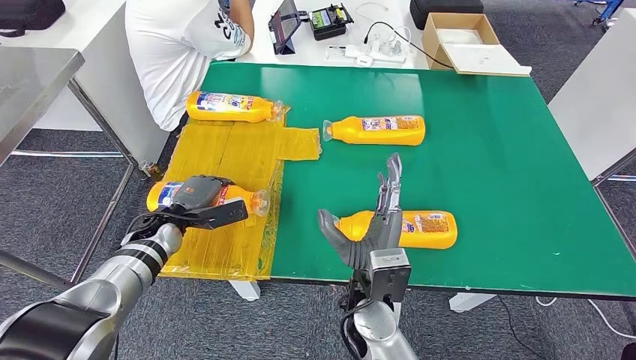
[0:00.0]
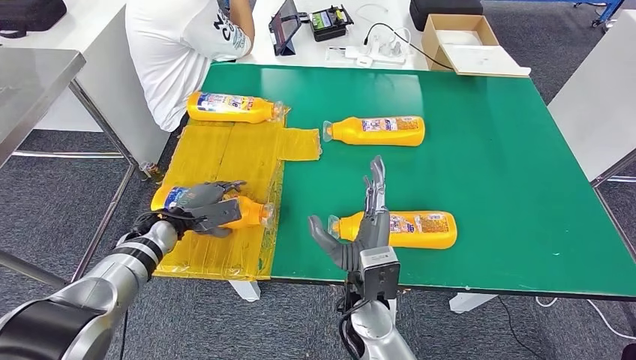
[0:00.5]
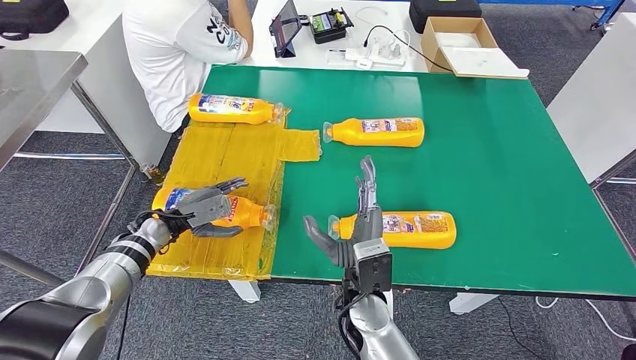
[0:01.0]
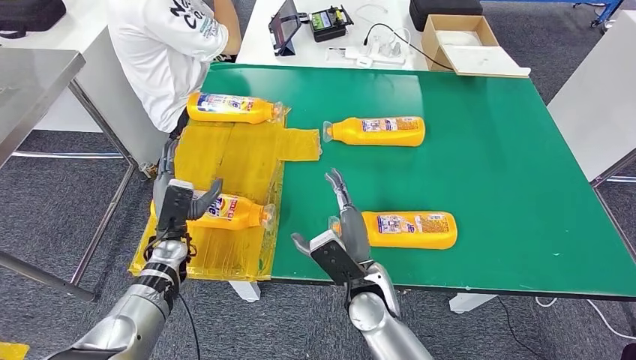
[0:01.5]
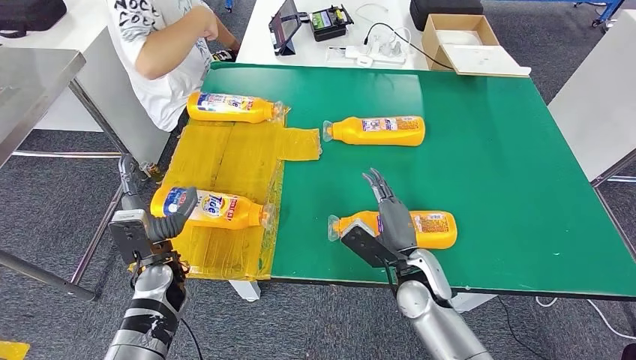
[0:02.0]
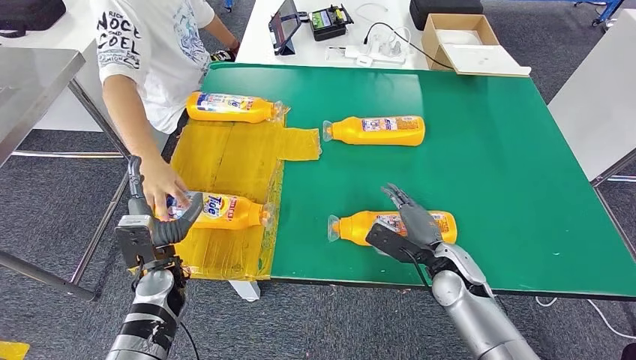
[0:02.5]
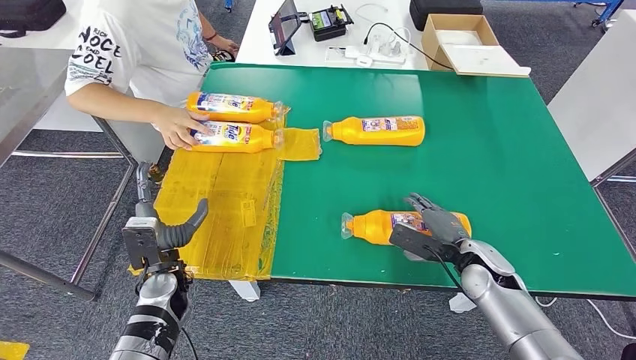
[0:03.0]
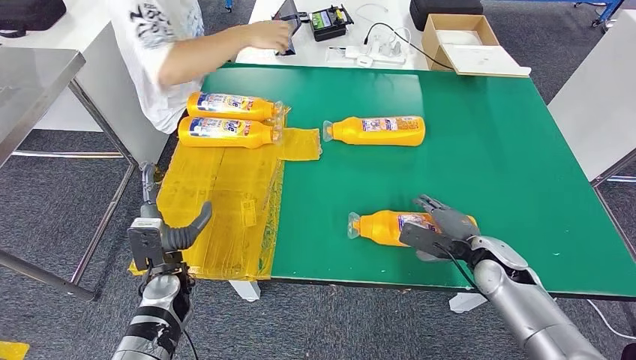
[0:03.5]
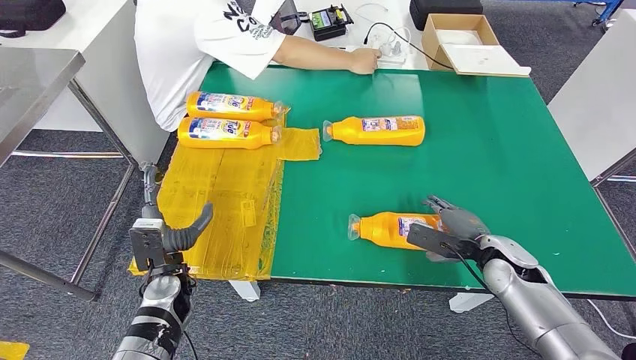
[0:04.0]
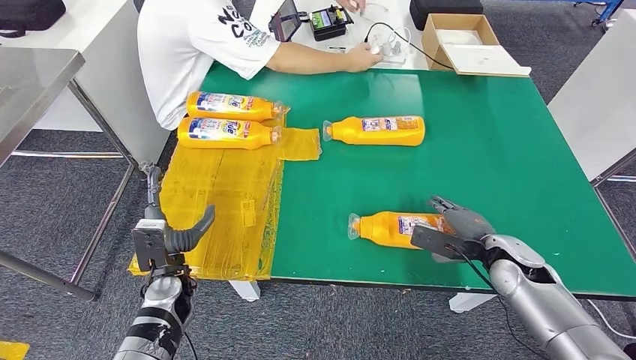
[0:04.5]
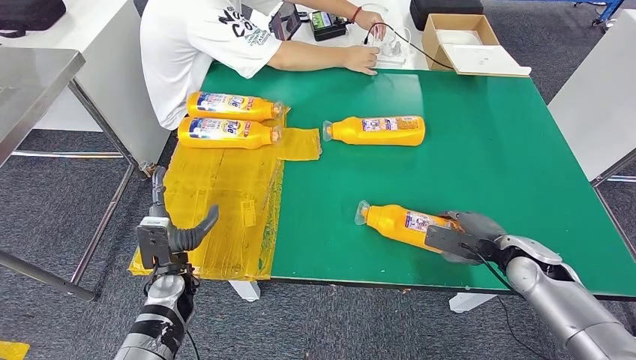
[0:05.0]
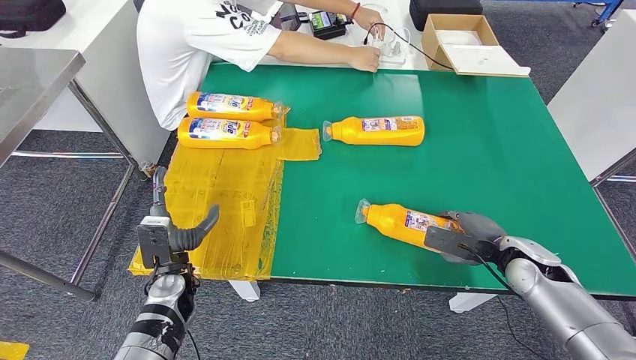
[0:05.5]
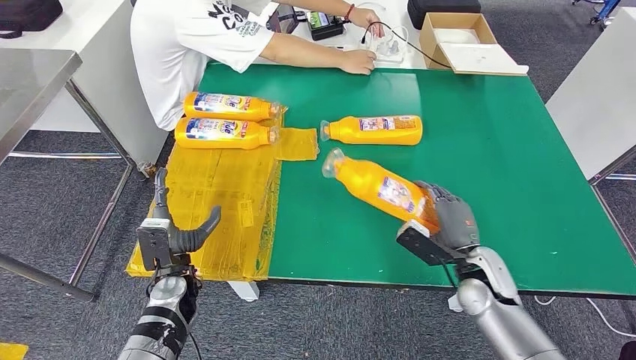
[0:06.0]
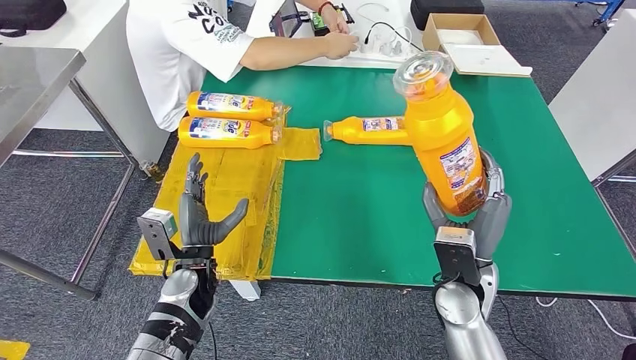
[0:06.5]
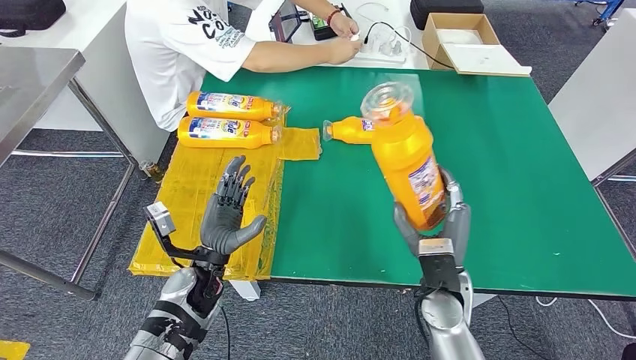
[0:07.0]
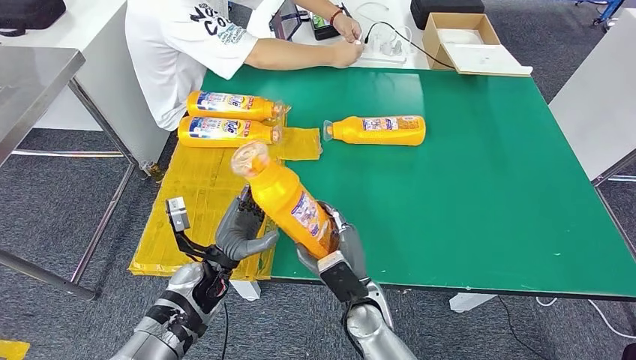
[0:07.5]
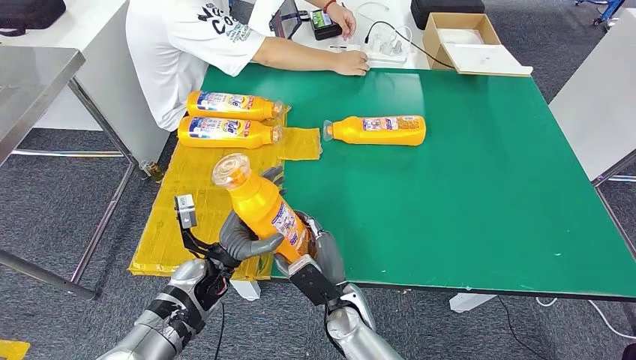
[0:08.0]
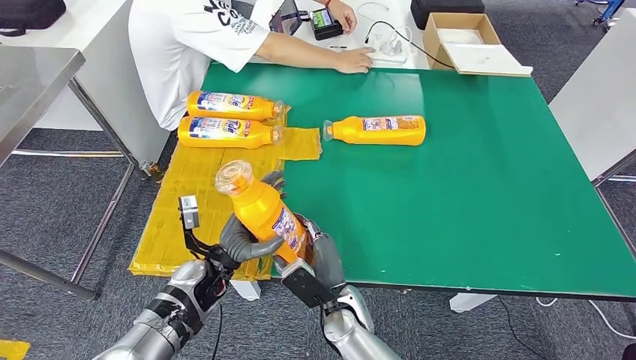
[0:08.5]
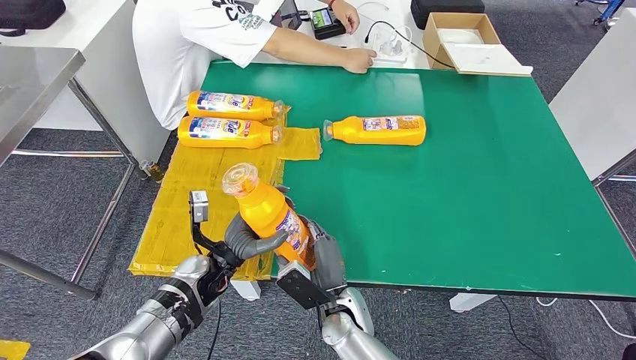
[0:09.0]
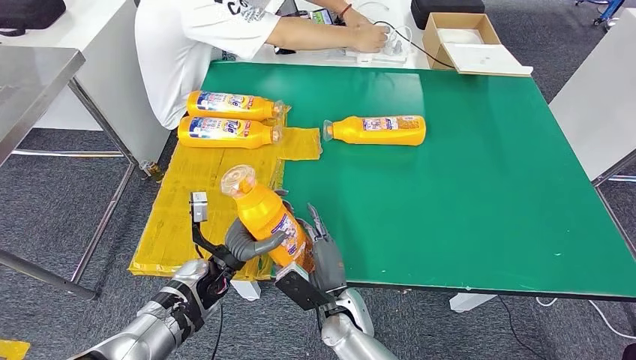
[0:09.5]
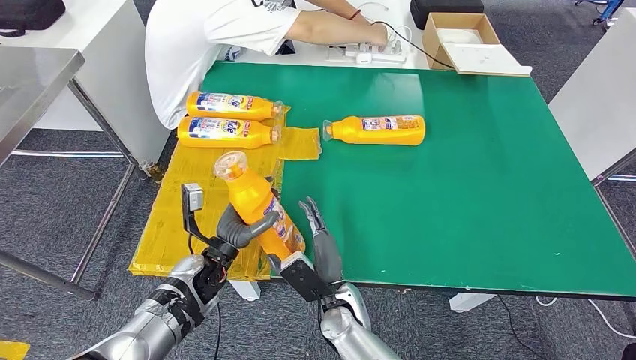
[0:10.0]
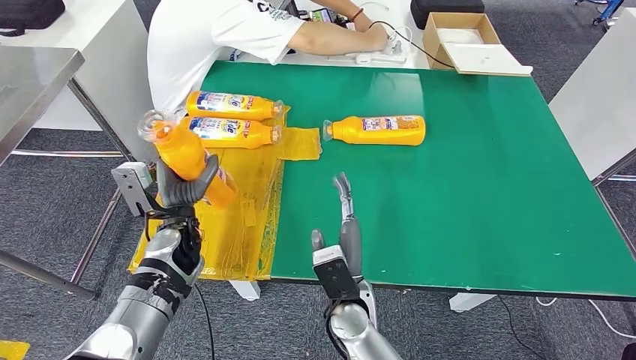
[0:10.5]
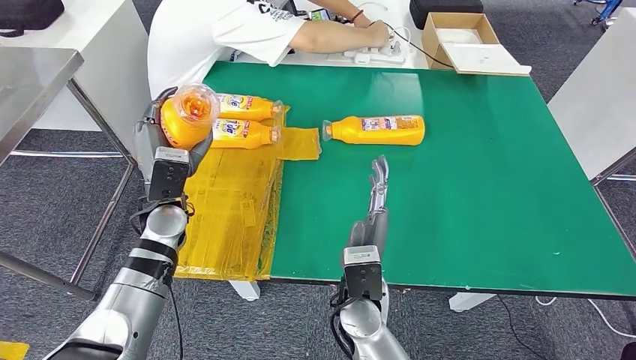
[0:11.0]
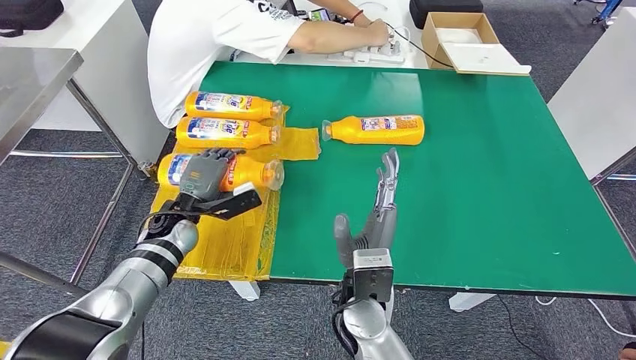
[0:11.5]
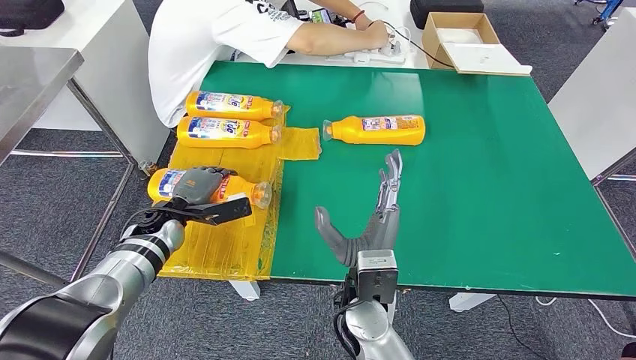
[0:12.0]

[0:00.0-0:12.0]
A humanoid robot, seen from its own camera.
Step, 0:01.5 to 0:07.0: Pick up the bottle from the table.
0:04.0 to 0:06.0: The right hand ends up approximately 5 cm from where it was.
0:08.0 to 0:10.0: The hands move only a little.
0:10.0 to 0:12.0: The left hand heads to the left and forward, covering approximately 15 cm, and moves approximately 10 cm upward and comes back. Meanwhile the right hand is displaced upward by roughly 10 cm.

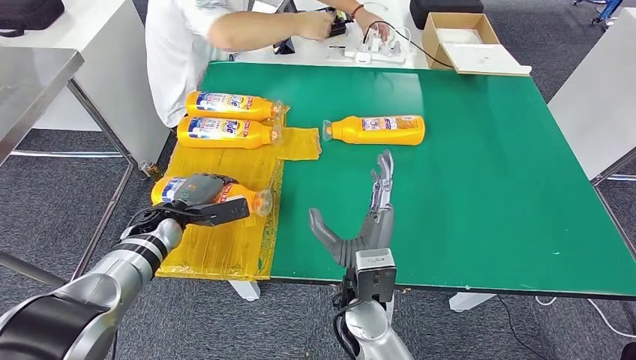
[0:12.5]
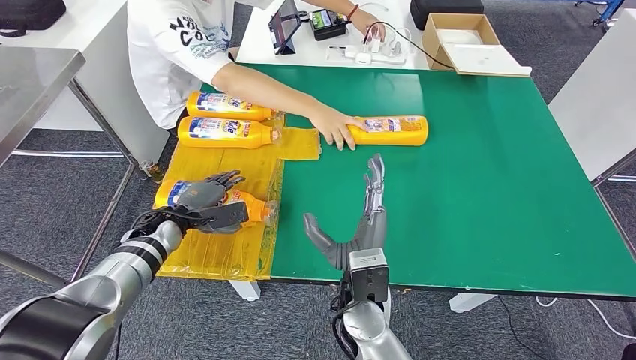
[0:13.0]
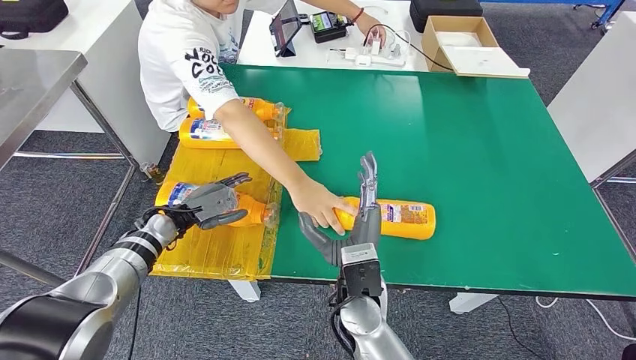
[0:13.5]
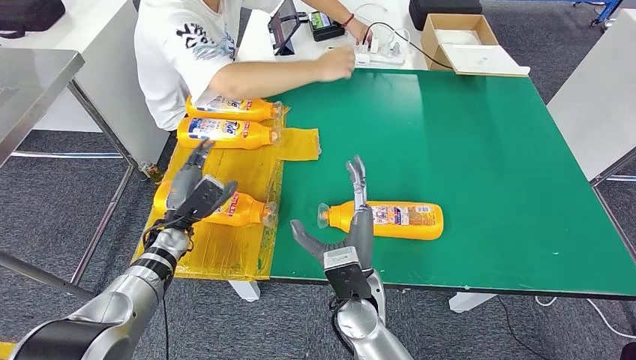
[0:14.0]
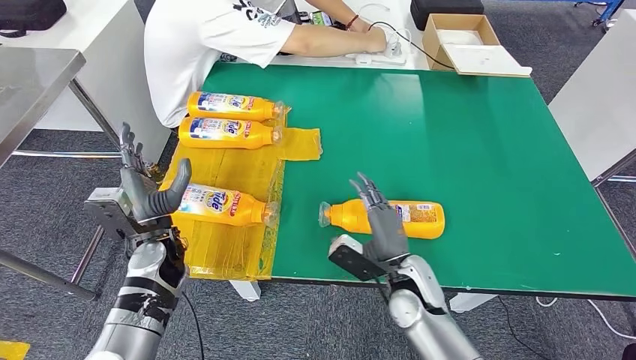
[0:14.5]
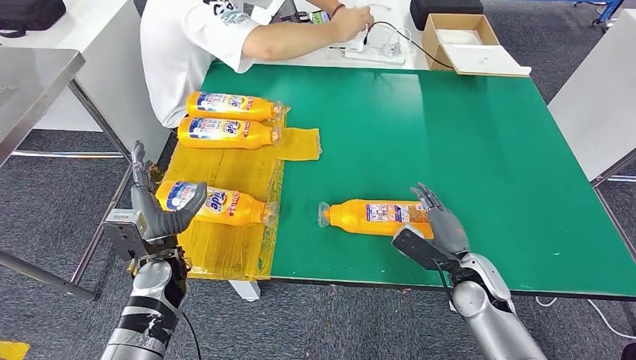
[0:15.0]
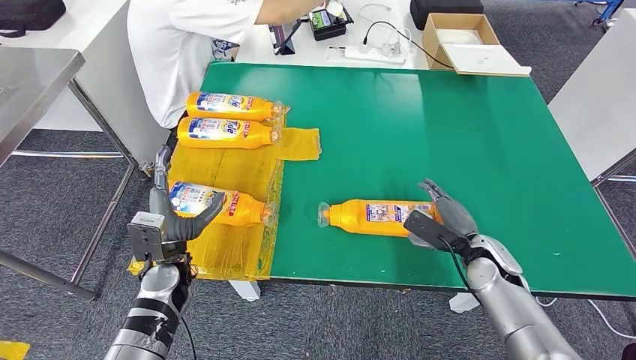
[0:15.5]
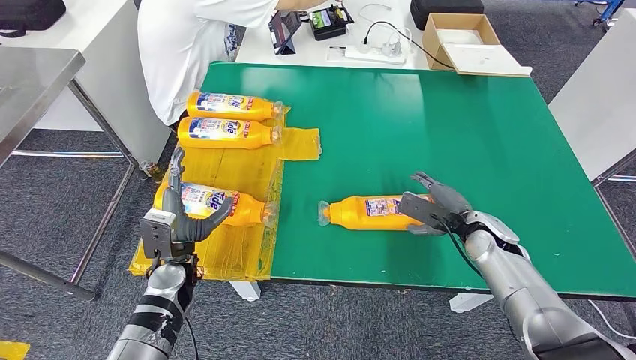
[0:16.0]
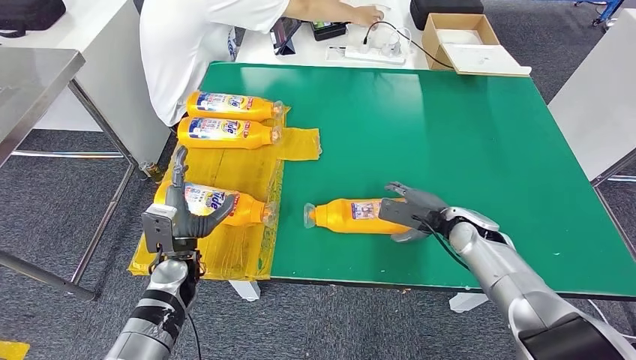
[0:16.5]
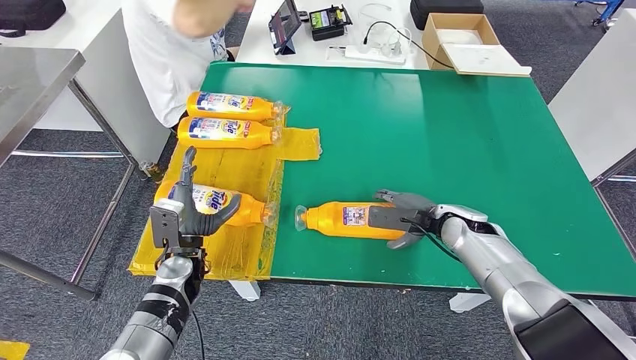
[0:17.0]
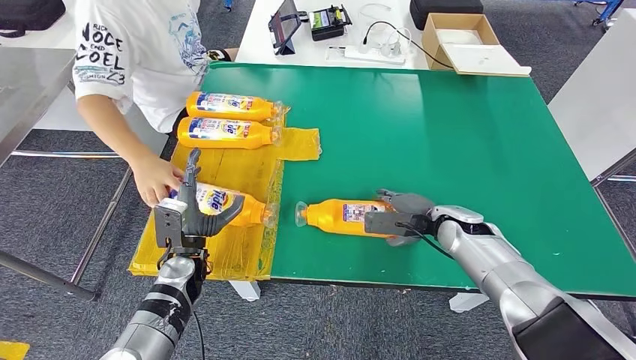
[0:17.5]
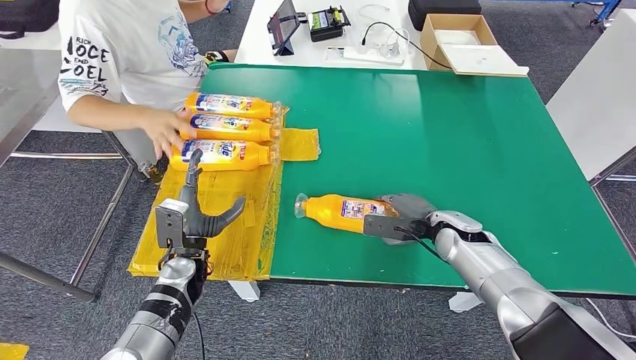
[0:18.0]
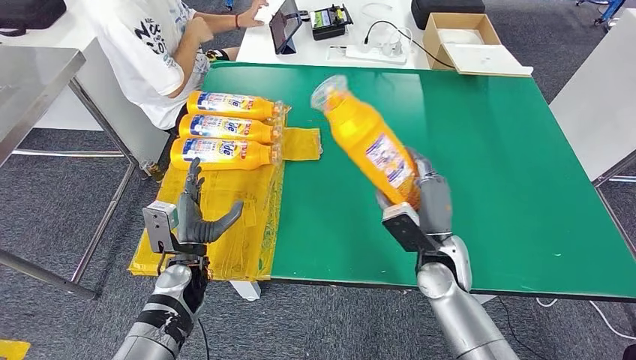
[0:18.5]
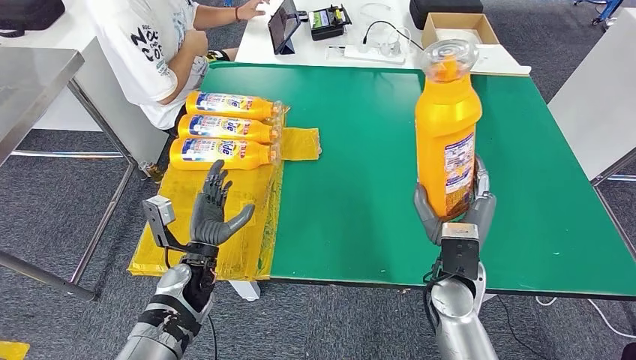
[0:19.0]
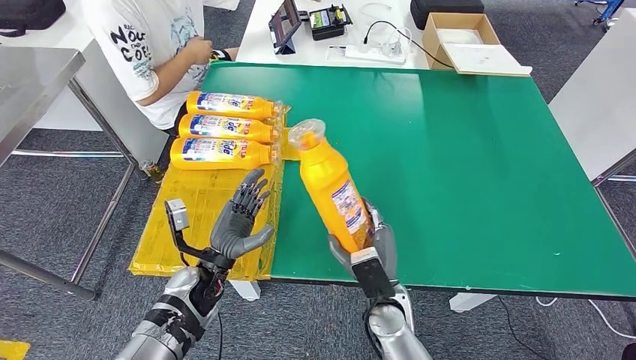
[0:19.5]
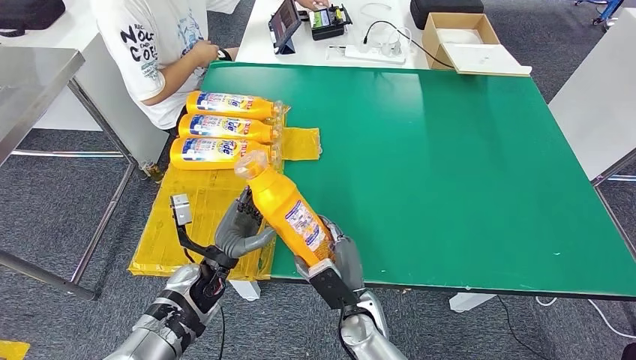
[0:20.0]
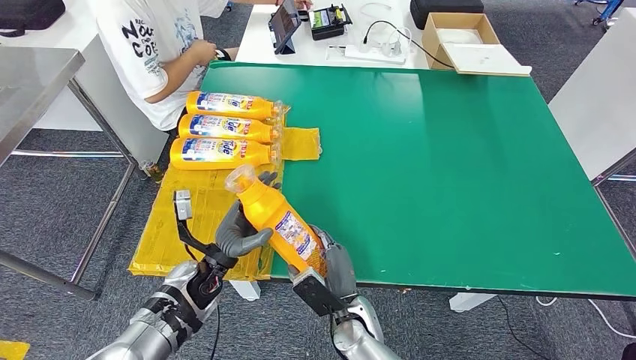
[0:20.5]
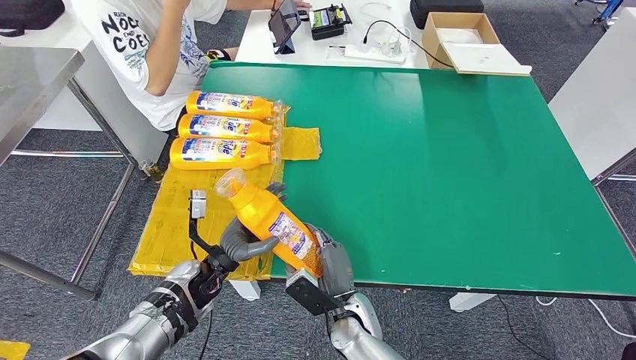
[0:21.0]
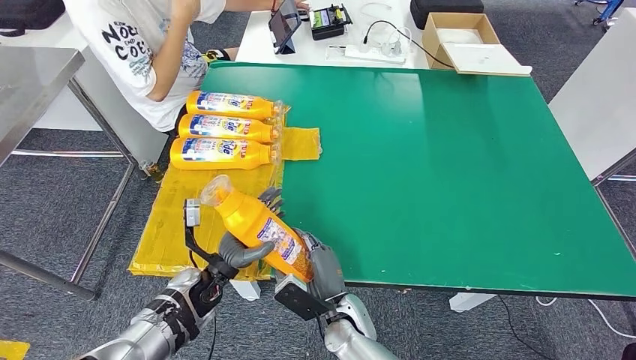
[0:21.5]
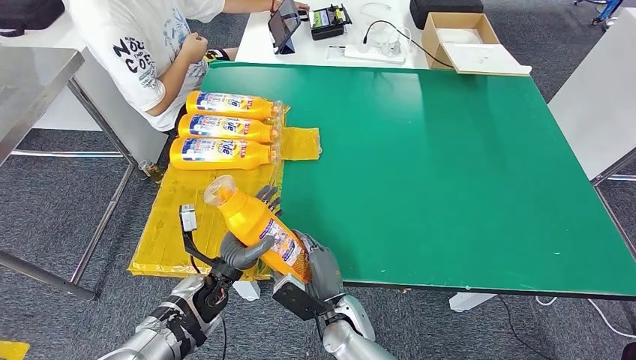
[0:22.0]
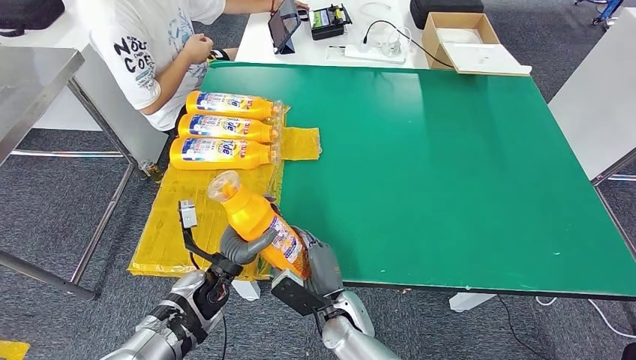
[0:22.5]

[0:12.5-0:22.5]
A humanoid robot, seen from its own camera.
Step, 0:13.0 to 0:19.0: Pick up the bottle from the table.
0:20.5 to 0:22.5: There are only small adjustments of the hands.
